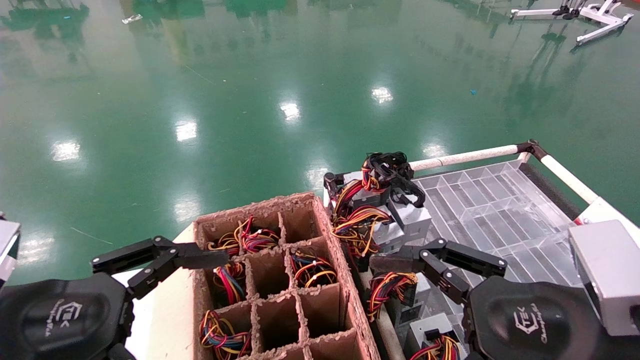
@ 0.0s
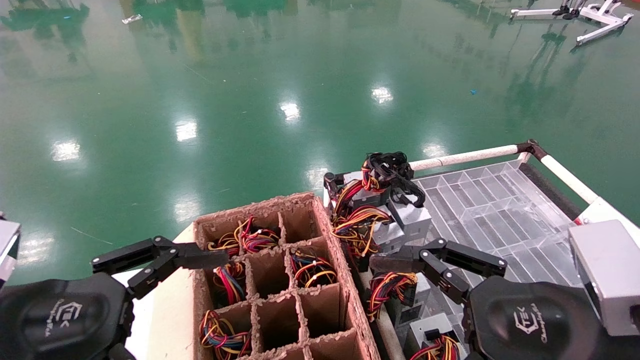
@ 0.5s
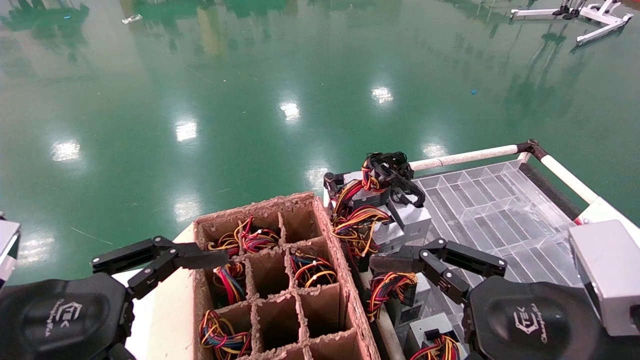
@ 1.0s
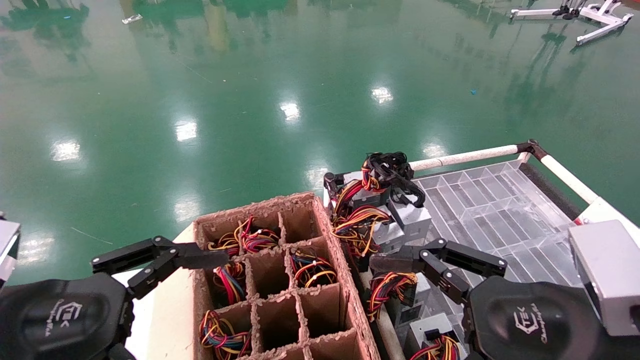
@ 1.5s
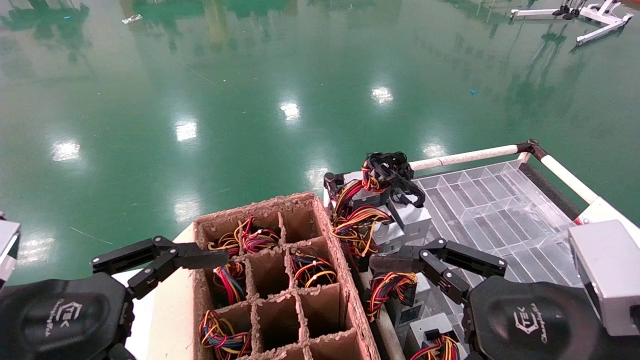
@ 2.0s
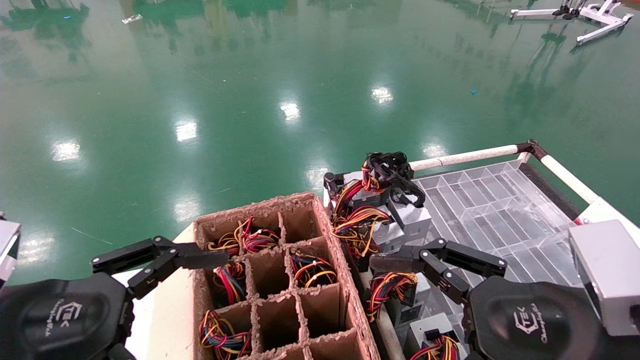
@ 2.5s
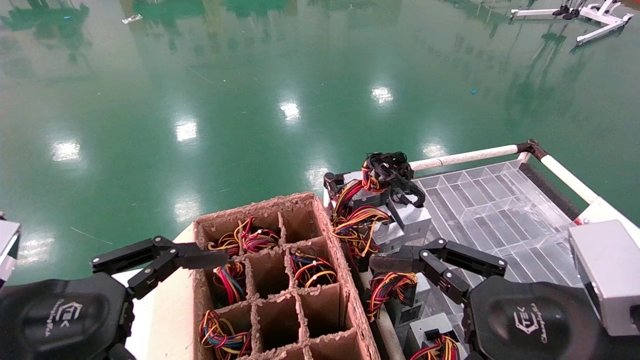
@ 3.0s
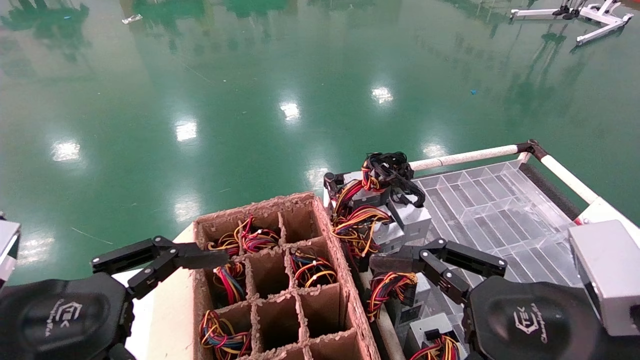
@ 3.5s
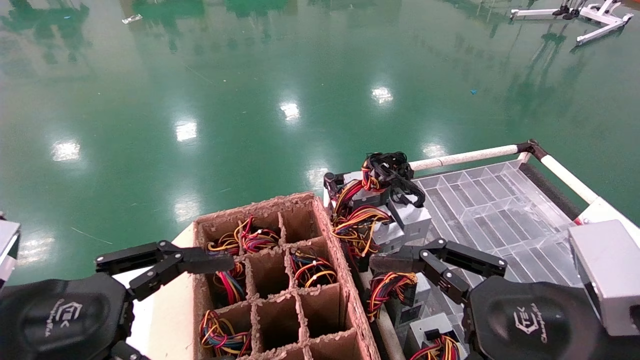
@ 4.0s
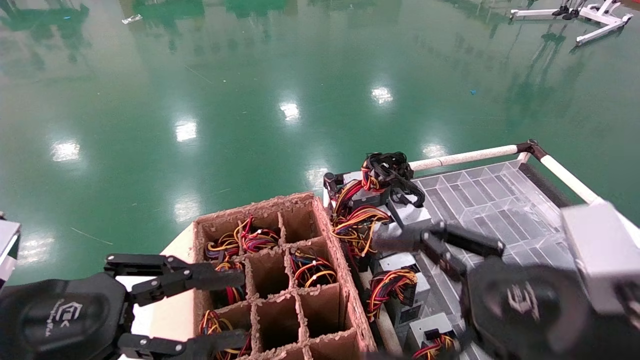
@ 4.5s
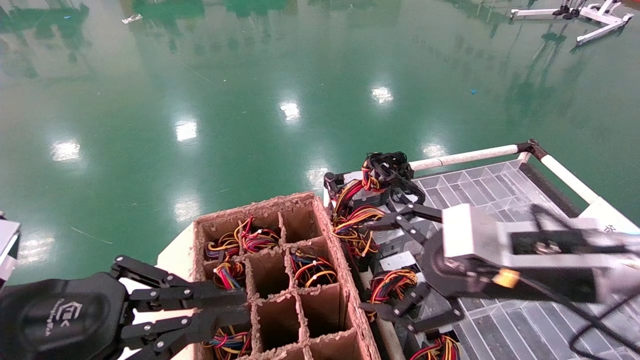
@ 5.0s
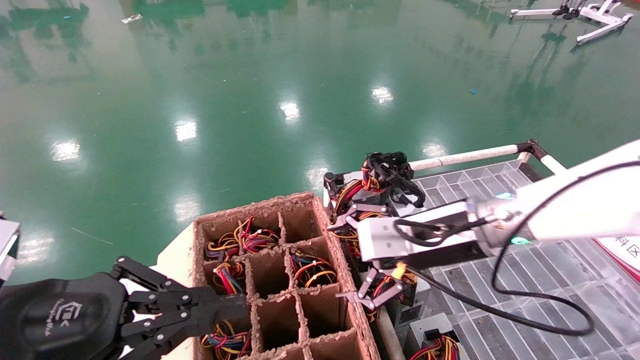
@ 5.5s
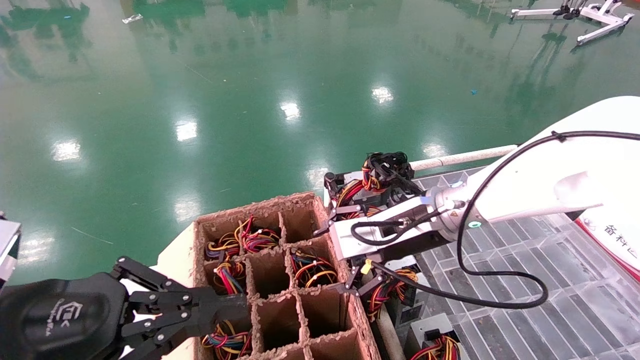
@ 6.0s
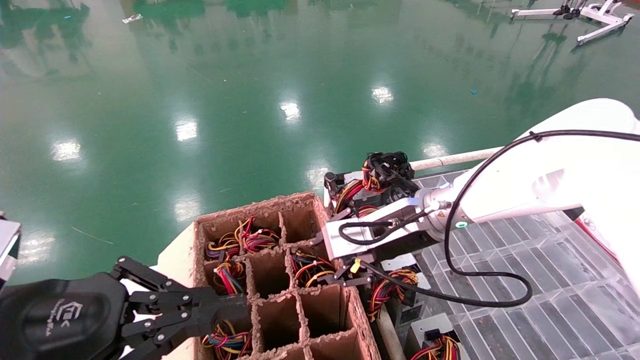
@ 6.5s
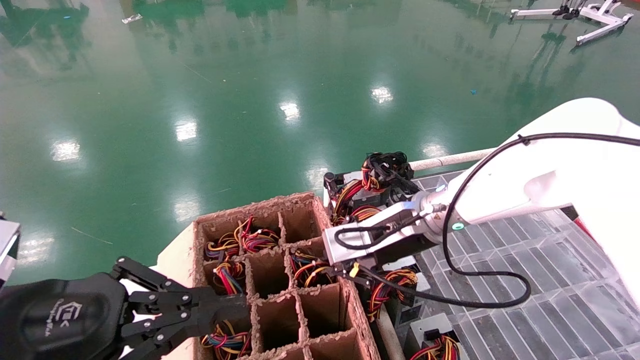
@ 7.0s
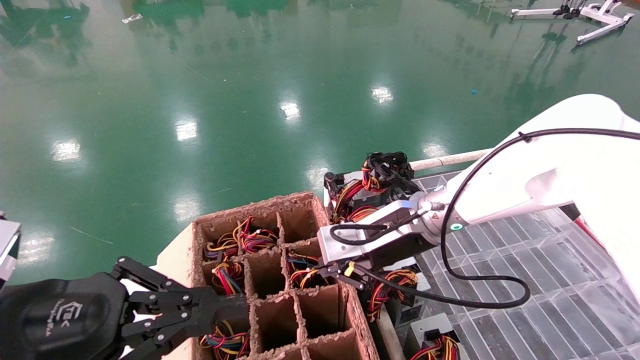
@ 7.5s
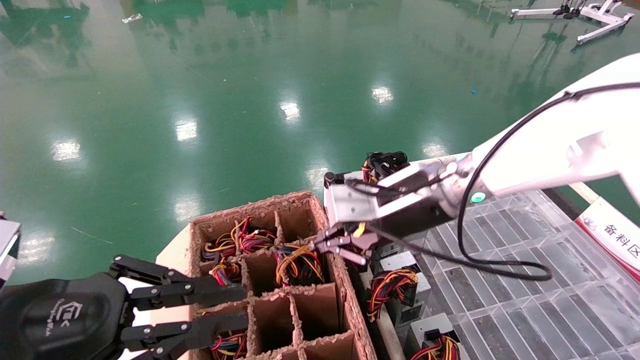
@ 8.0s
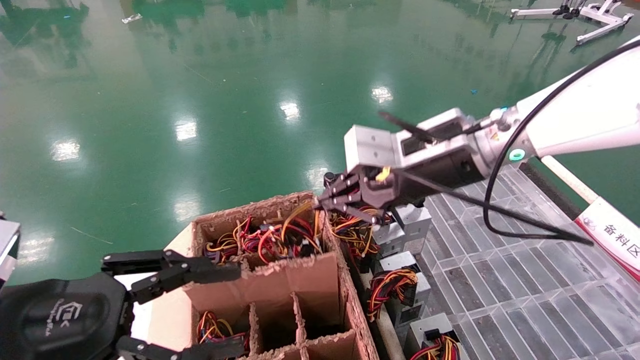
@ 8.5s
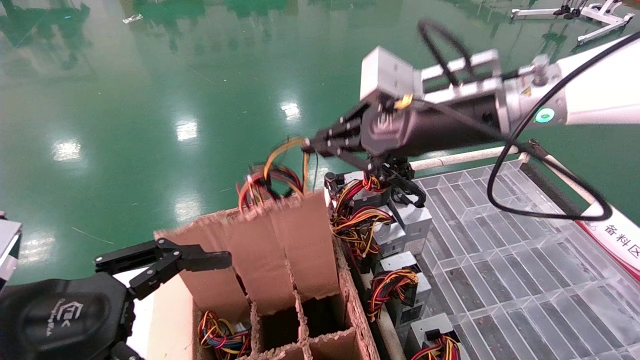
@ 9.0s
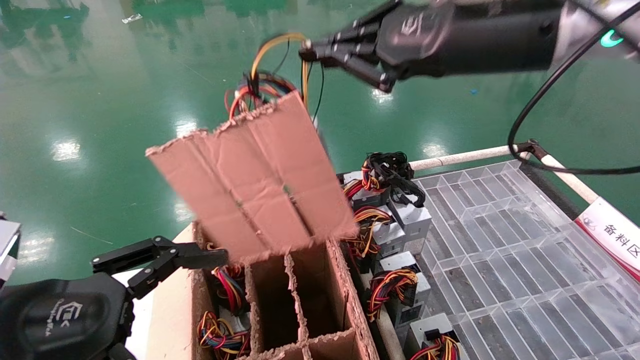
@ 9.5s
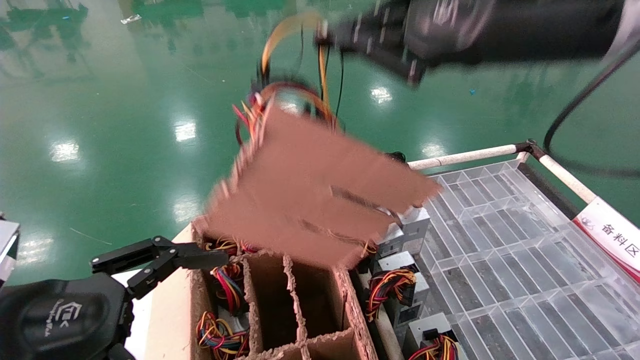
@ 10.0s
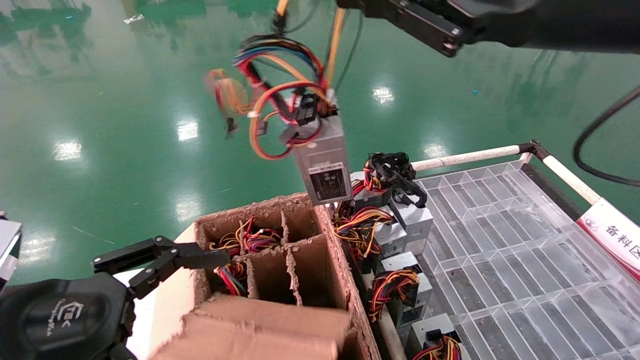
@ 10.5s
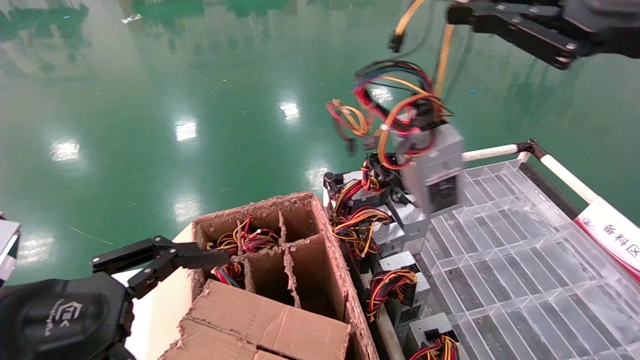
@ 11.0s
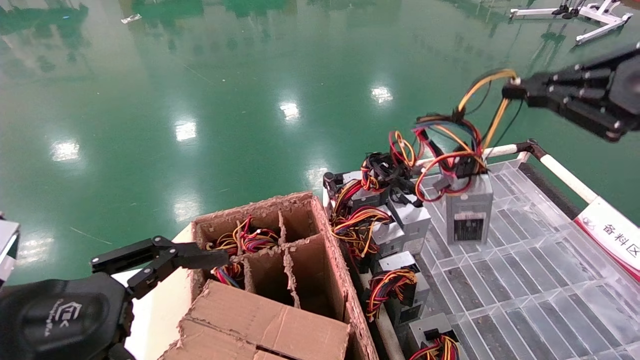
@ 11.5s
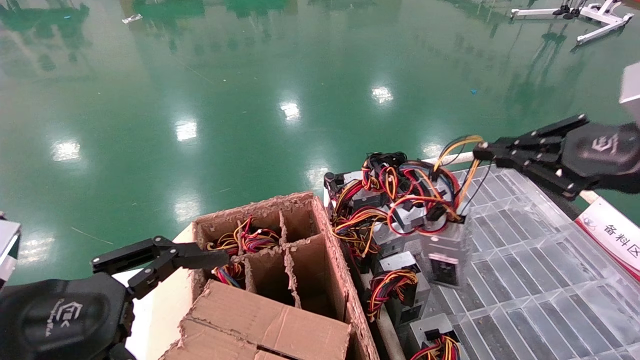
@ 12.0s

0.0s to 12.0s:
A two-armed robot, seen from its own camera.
Step, 5.5s to 7.5s: Grab and lift the power supply from the large box.
0.0s to 4.0s: Neither gripper changes place.
4.0s to 6.0s: The left gripper closes; the right gripper goes about 25 cm forward and to the left.
6.0s to 8.0s: The right gripper closes.
8.0s to 10.0s: The left gripper opens its fingers. Meanwhile the right gripper travels upward, backward and to the right by about 20 cm.
10.0s to 12.0s: The right gripper travels to the right and downward by some 20 cm.

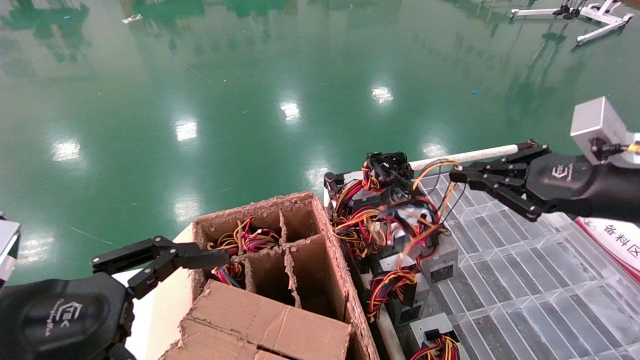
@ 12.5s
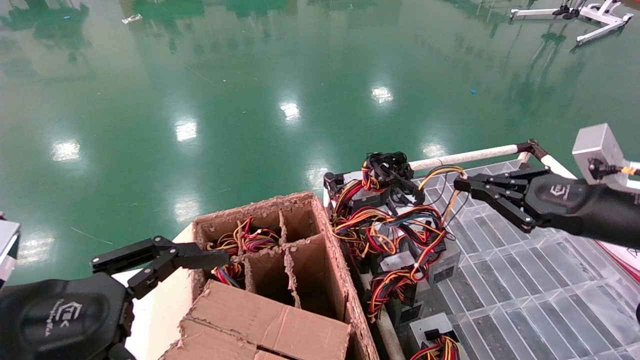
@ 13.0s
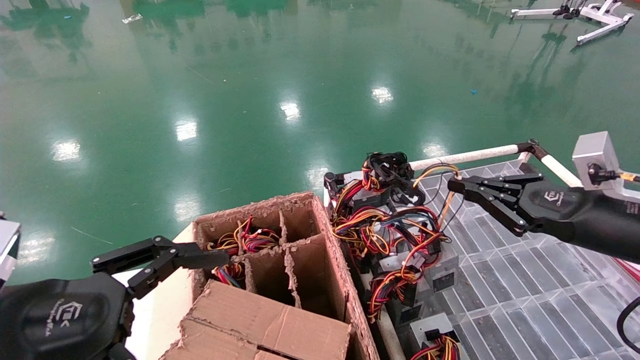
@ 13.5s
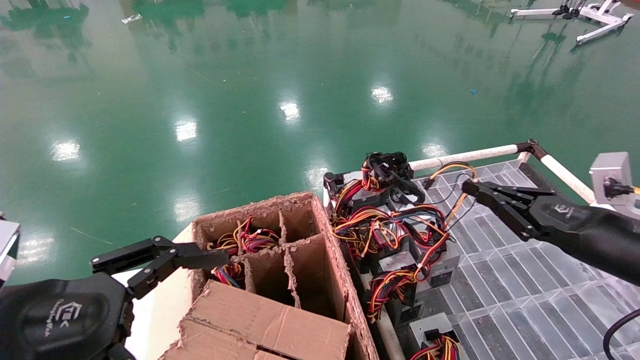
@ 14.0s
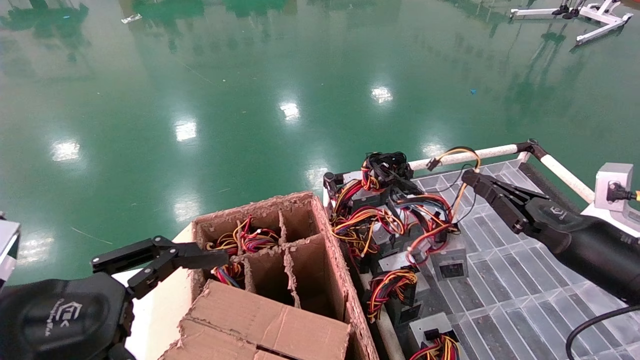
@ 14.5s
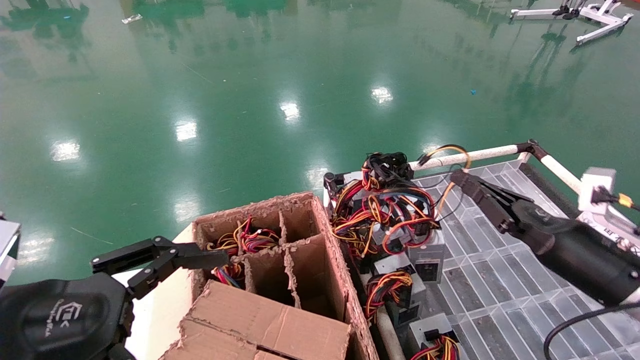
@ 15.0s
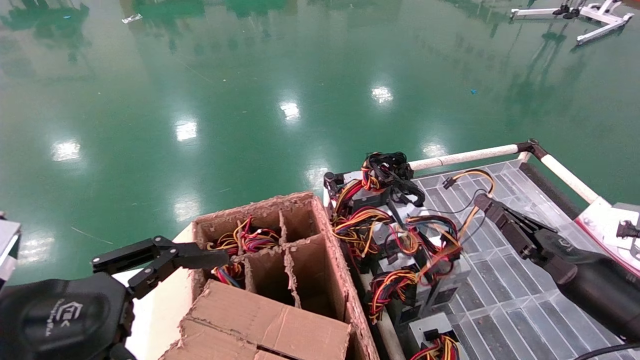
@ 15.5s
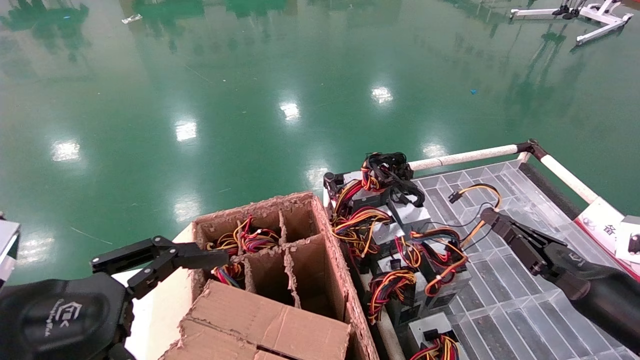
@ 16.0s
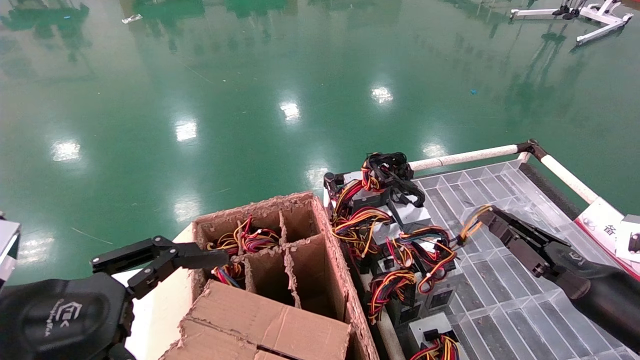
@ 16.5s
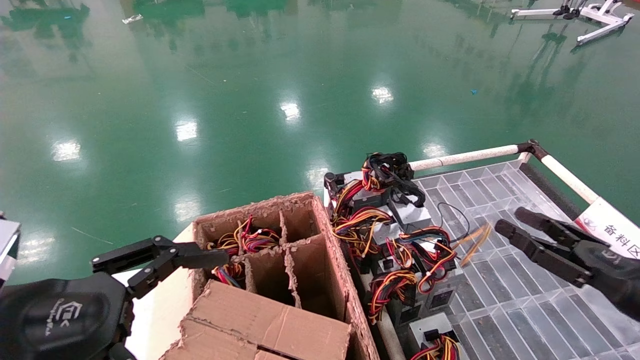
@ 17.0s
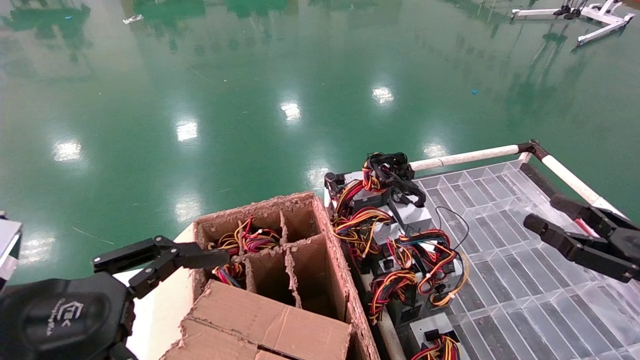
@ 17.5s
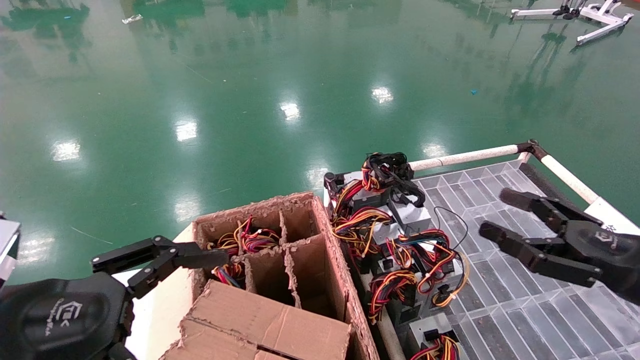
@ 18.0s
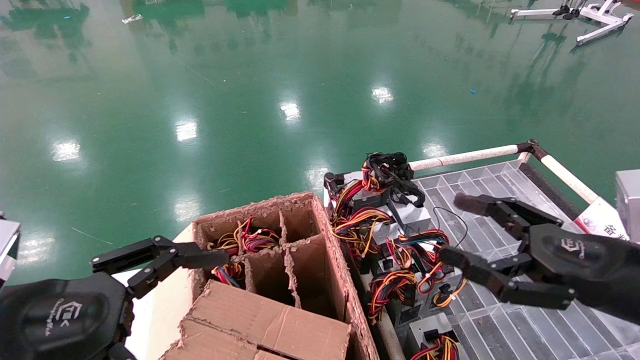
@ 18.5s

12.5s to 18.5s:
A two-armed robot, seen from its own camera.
Step, 12.5s to 16.5s: Place the power supply on the operating table.
12.5s to 14.5s: The right gripper goes roughly 10 cm downward.
14.5s to 16.5s: The right gripper travels downward by about 5 cm.
16.5s to 18.5s: The right gripper travels upward, backward and to the left by about 15 cm, and opens.
